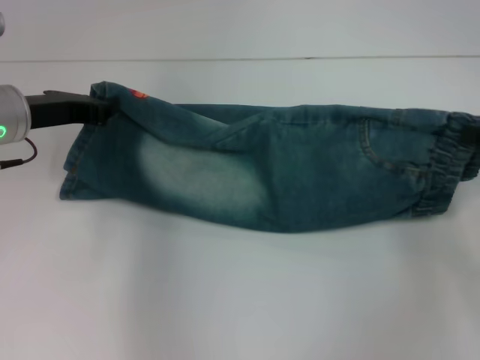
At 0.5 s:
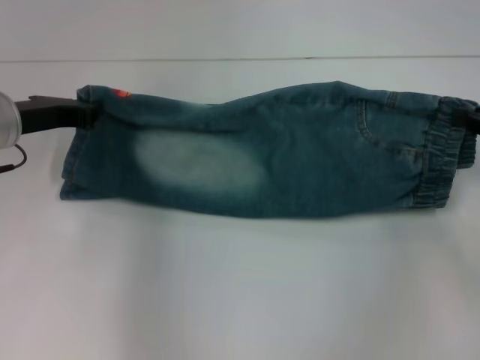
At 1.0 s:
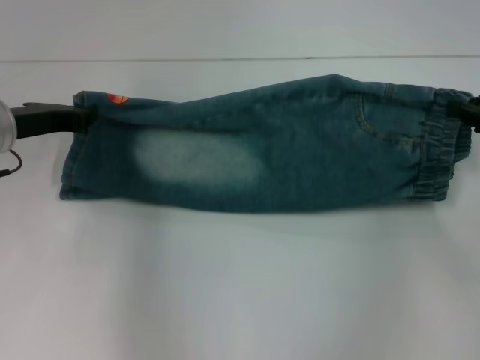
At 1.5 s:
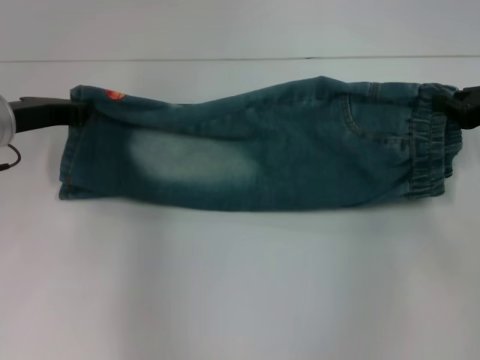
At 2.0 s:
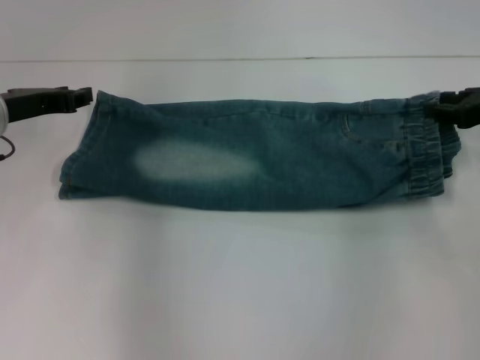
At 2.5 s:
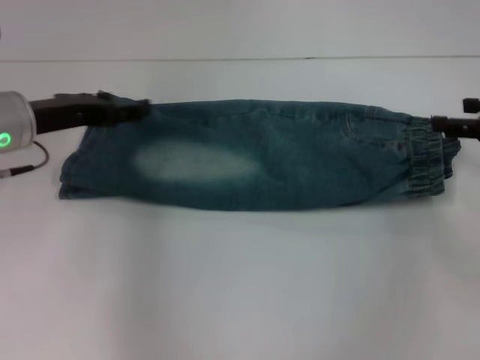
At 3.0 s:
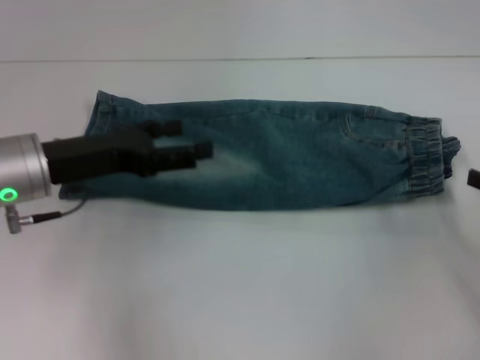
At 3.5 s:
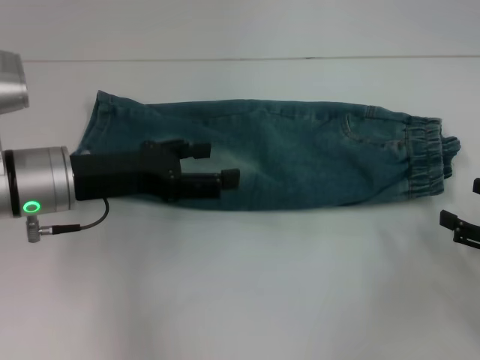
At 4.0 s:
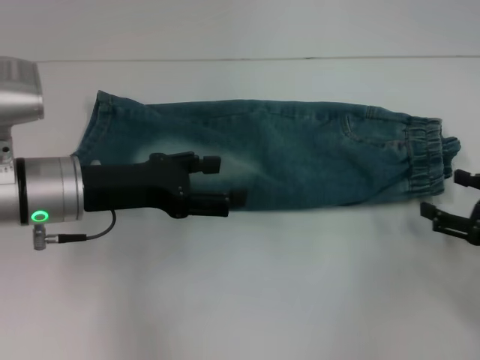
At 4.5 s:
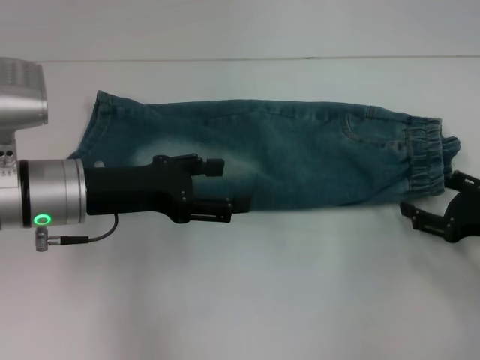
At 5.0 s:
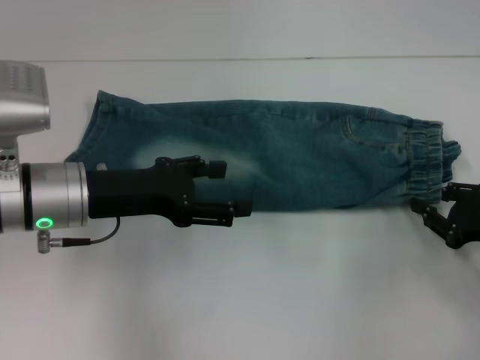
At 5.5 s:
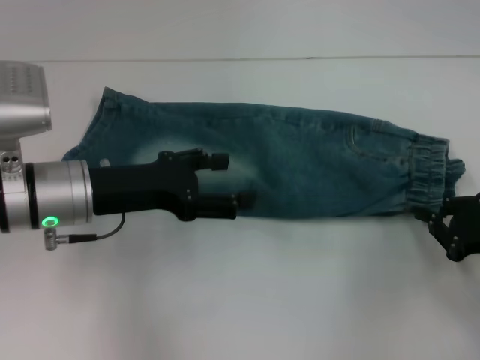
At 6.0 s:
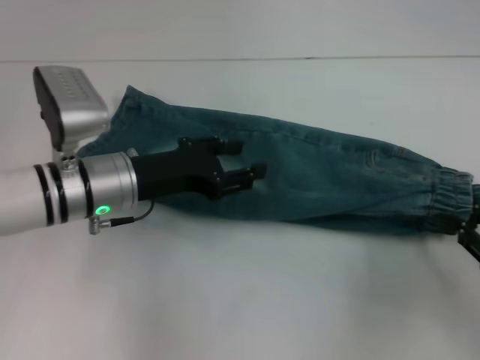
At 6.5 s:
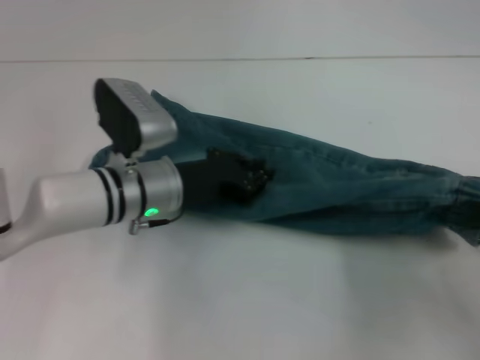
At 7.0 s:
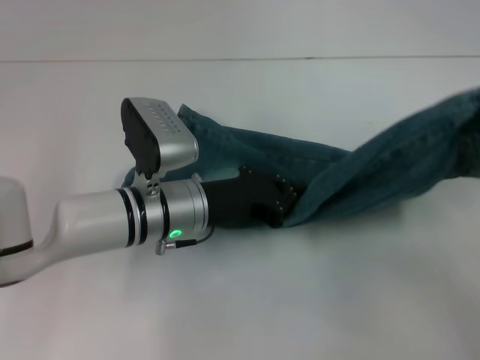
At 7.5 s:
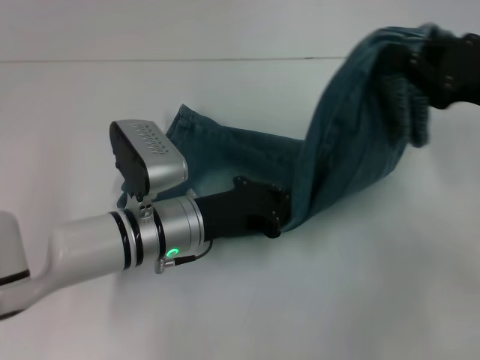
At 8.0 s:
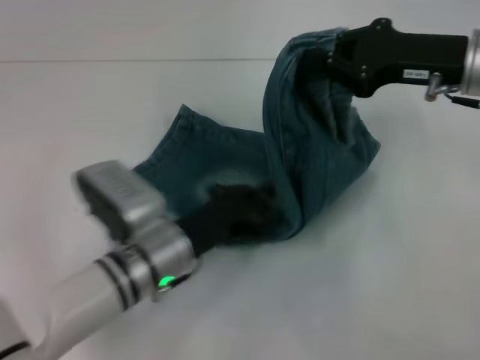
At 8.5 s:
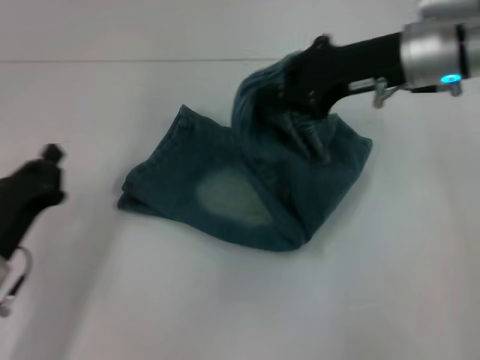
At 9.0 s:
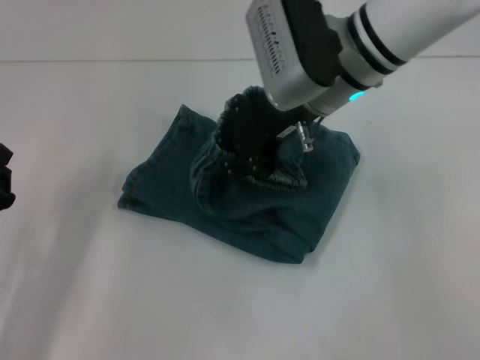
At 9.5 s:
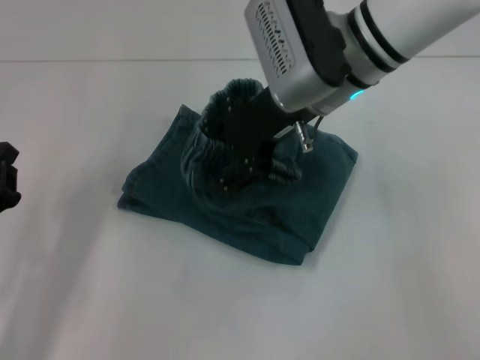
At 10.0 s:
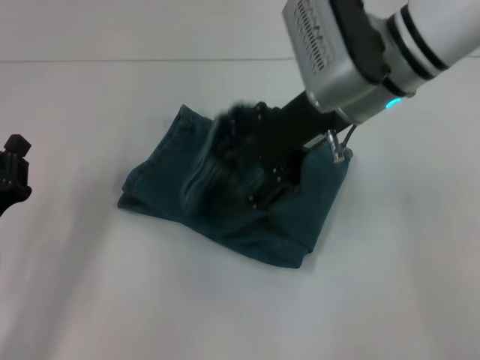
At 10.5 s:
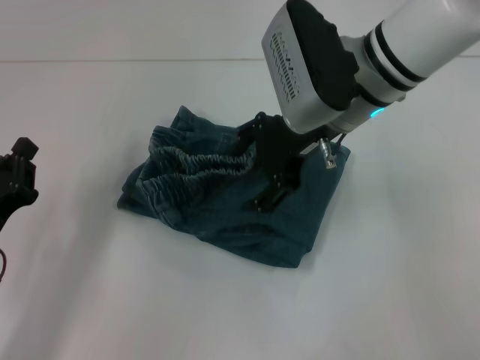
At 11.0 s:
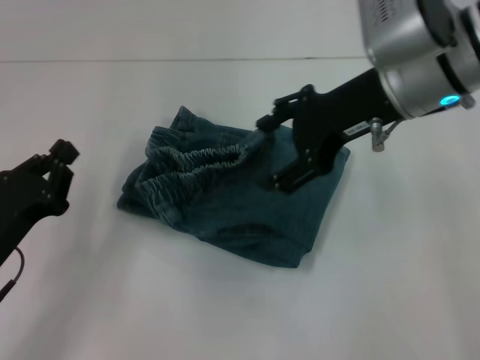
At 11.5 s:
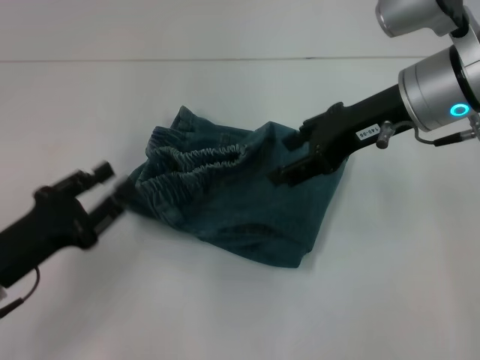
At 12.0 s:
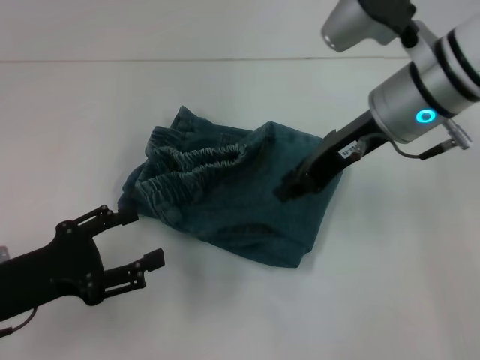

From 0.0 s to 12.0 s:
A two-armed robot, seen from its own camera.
Step, from 0.0 s to 1.5 s: Fold upward with your left hand.
Step, from 2.5 s to 5.5 s: Grab the waistband with your right hand.
Step, from 6.0 s to 7.5 s: Press the middle of the pants with your left hand.
From 0.0 s to 2.0 s: The right gripper shifts some 5 cm forward.
From 2.0 s to 4.0 s: The right gripper moves backward and downward, approximately 15 cm, and opens, while the left gripper travels to the right and backward by roughly 10 cm, and opens its fingers.
From 4.0 s to 6.0 s: The left gripper shifts by roughly 5 cm. Meanwhile the right gripper closes its fingers.
From 6.0 s to 8.0 s: The left gripper moves downward, backward and to the right, about 10 cm, and closes up; the right gripper is displaced forward, to the left and upward by approximately 25 cm.
From 8.0 s to 10.0 s: The grippers both shift to the left by about 15 cm. The right gripper opens its fingers.
From 10.0 s to 12.0 s: The right gripper closes its fingers. Meanwhile the left gripper opens.

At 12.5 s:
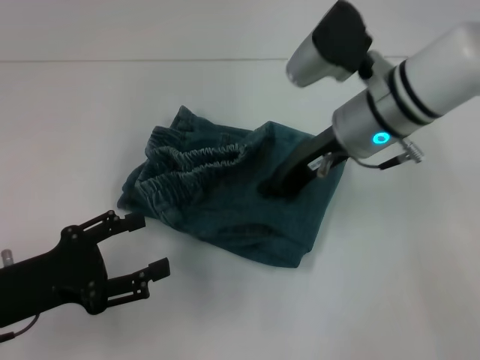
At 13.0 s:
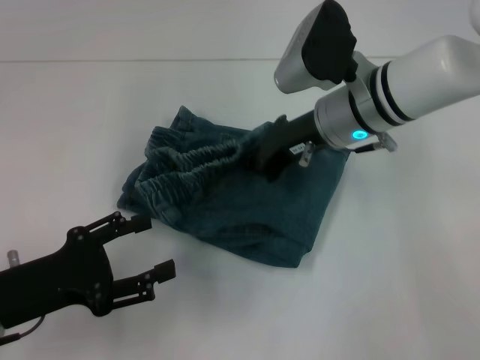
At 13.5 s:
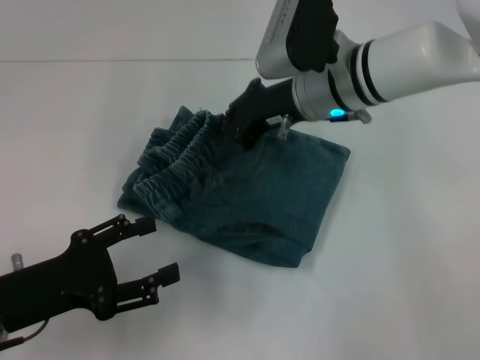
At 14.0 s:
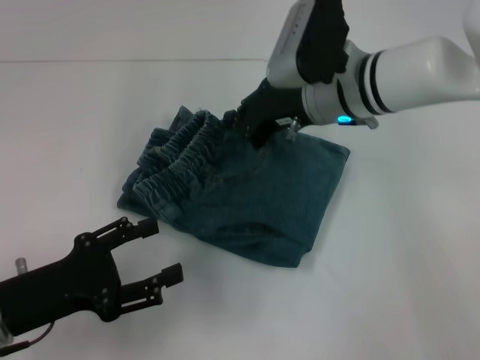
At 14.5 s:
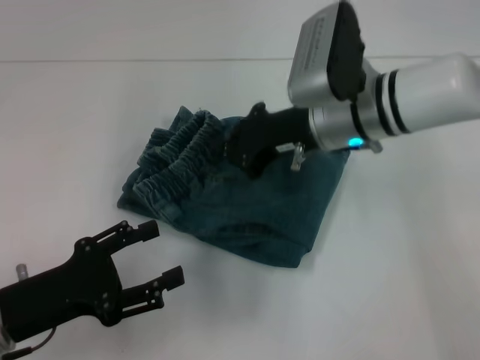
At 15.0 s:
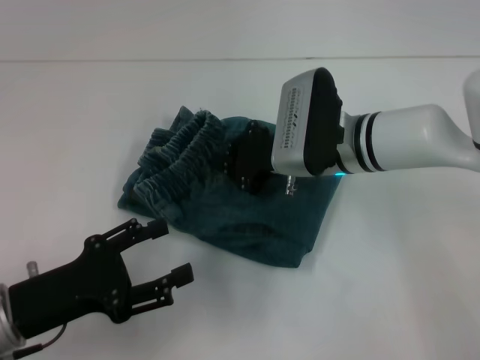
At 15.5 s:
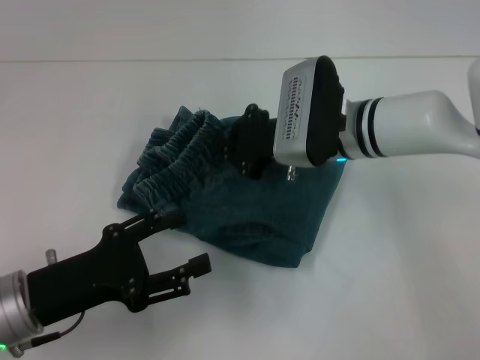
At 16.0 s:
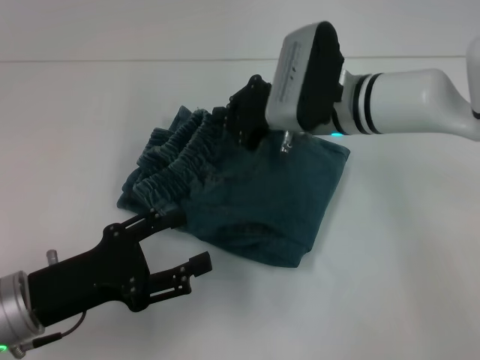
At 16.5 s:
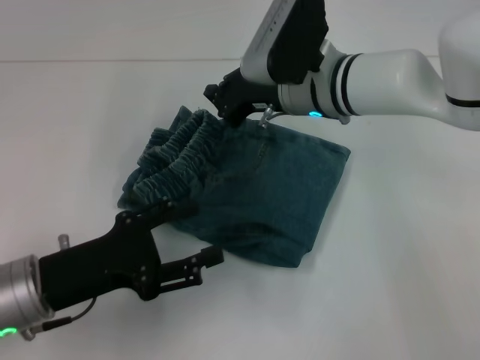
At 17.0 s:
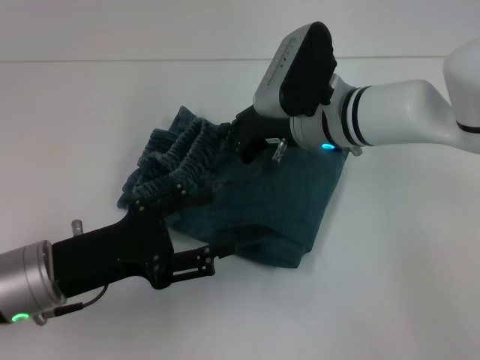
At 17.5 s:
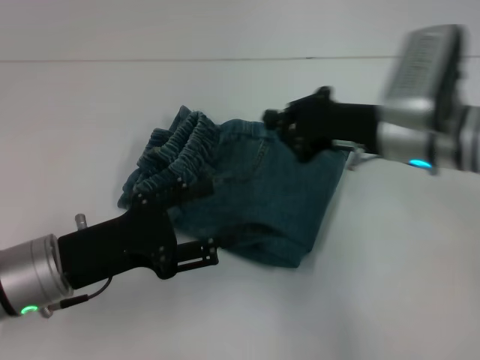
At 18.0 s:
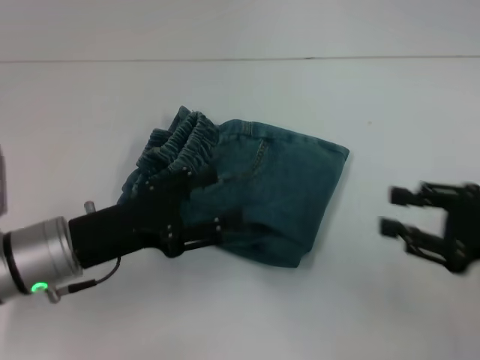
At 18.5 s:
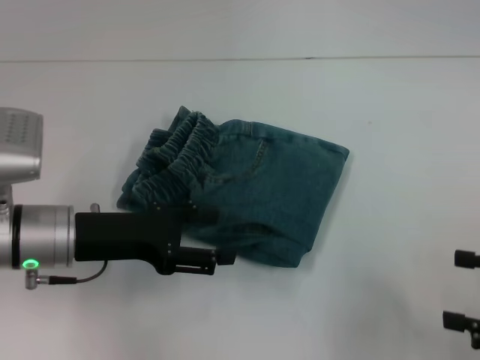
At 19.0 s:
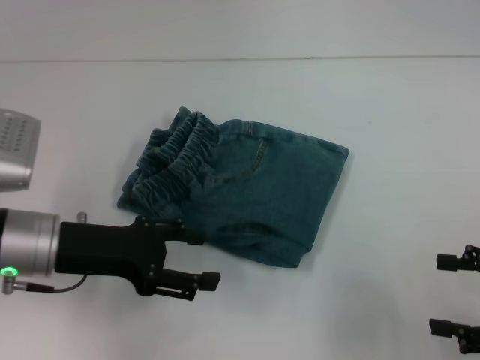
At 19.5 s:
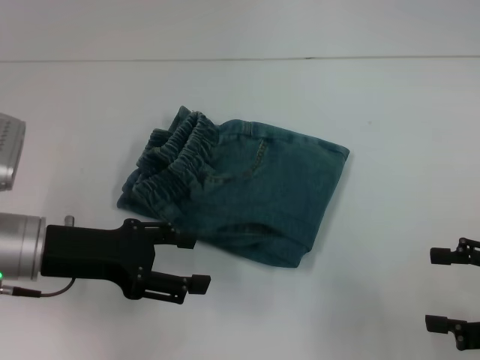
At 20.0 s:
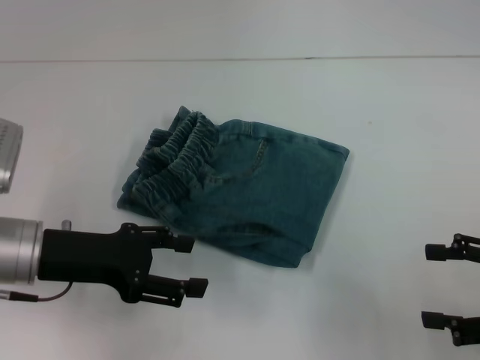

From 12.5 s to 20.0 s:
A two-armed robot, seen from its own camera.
From 16.5 s to 18.0 s: The right gripper heads to the right and backward, covering roughly 30 cm.
From 18.0 s to 20.0 s: The right gripper opens its fingers.
